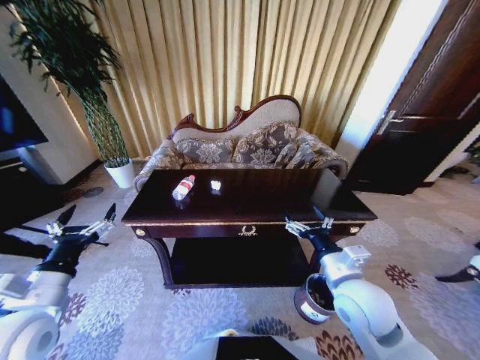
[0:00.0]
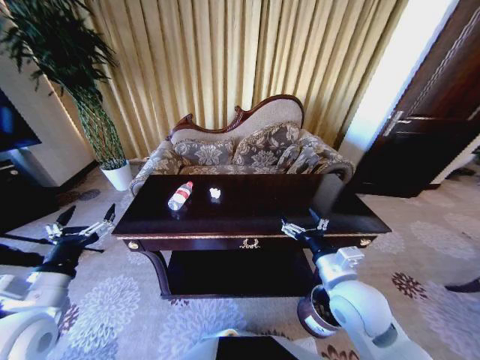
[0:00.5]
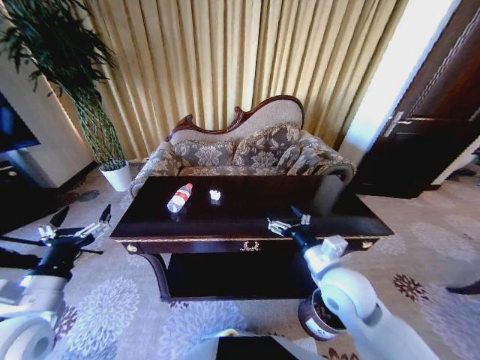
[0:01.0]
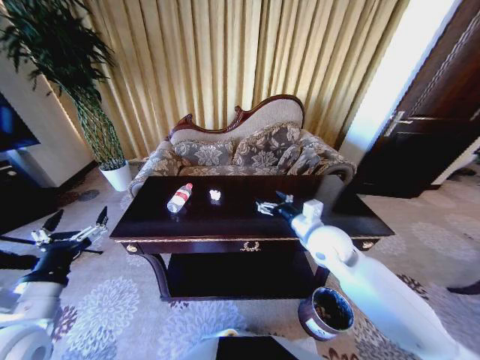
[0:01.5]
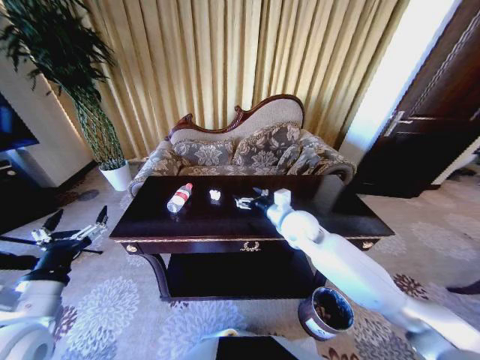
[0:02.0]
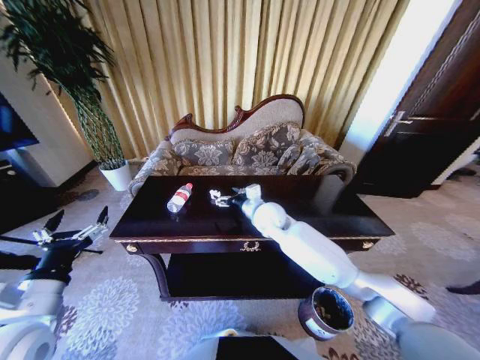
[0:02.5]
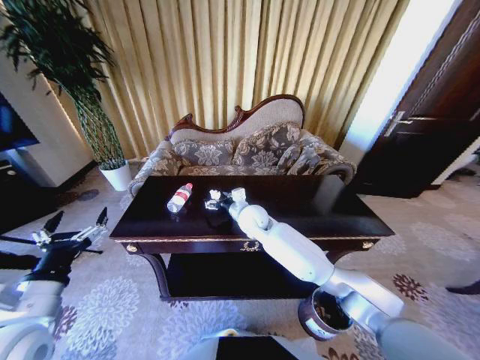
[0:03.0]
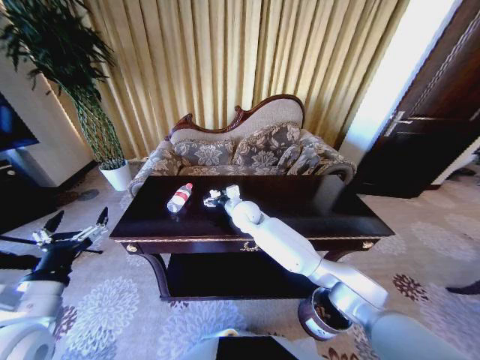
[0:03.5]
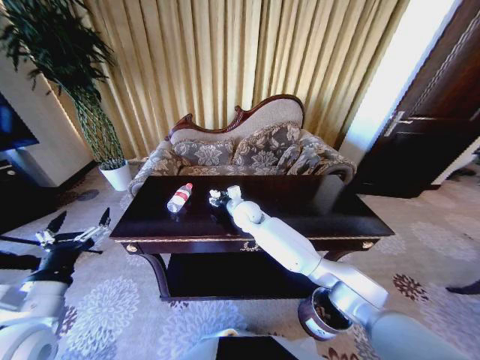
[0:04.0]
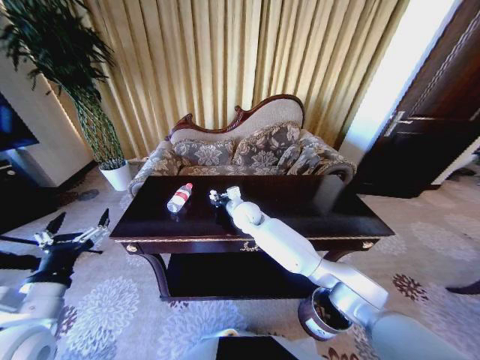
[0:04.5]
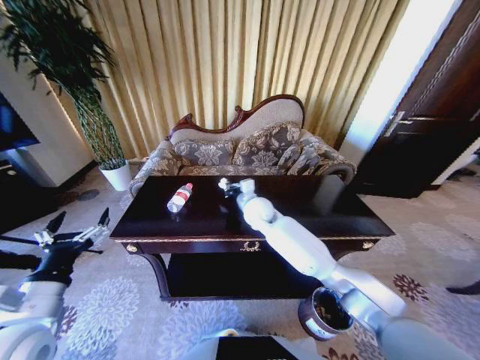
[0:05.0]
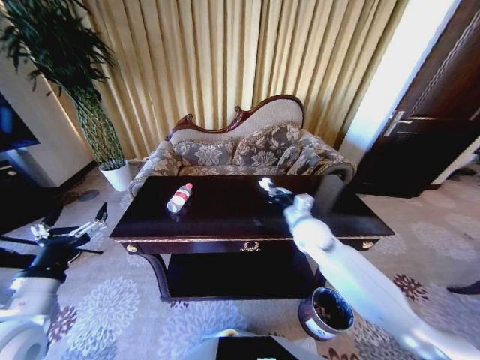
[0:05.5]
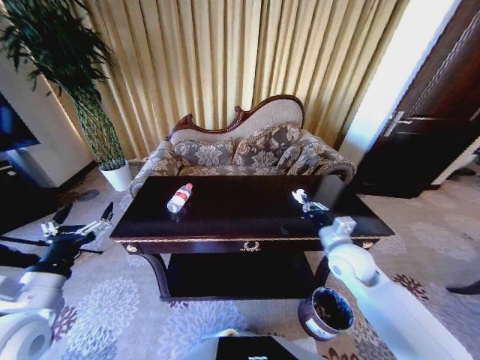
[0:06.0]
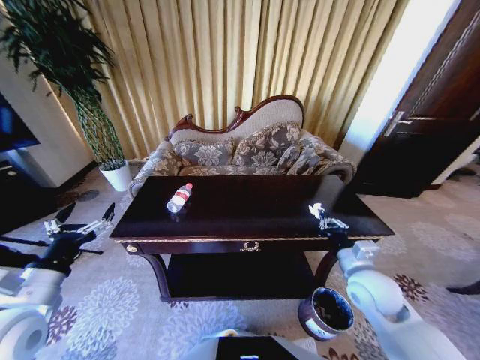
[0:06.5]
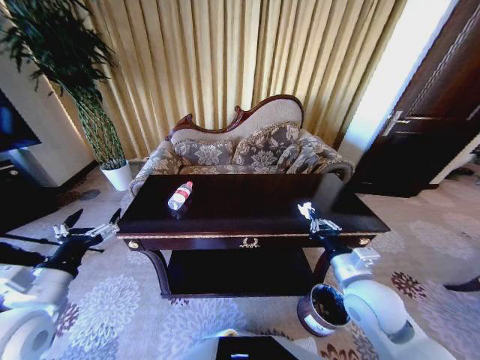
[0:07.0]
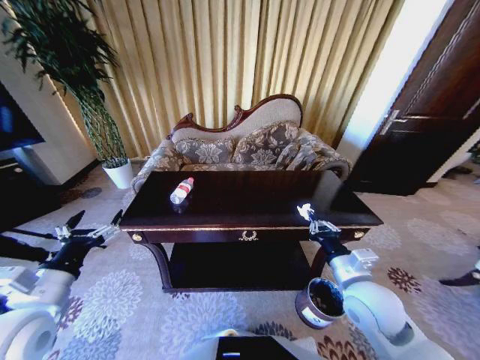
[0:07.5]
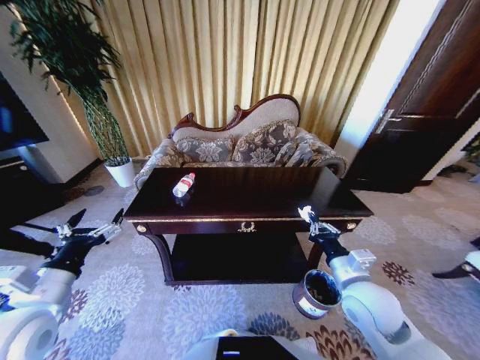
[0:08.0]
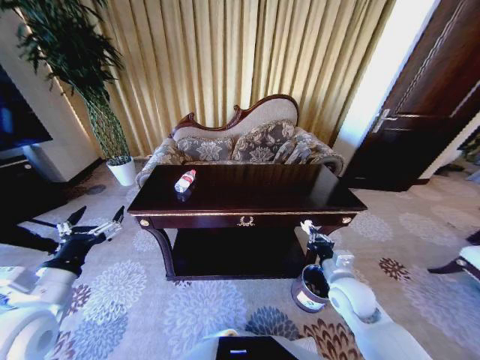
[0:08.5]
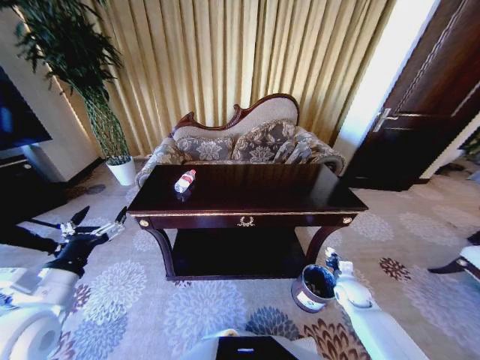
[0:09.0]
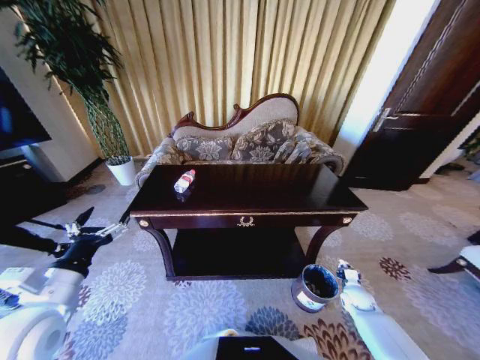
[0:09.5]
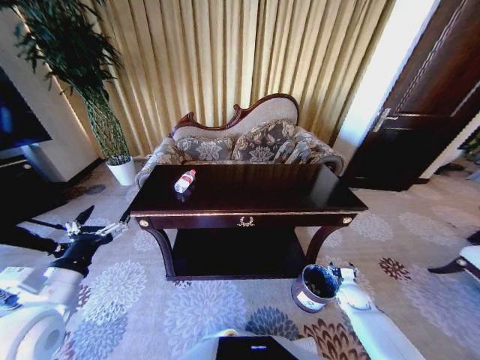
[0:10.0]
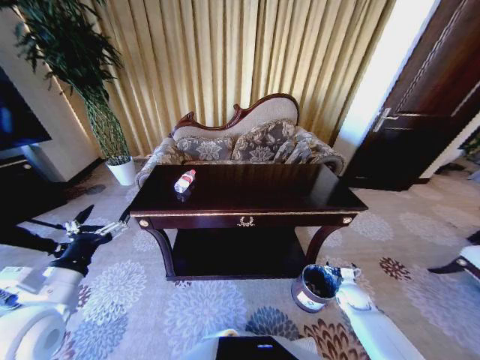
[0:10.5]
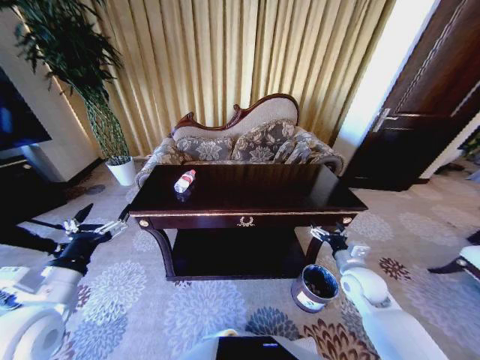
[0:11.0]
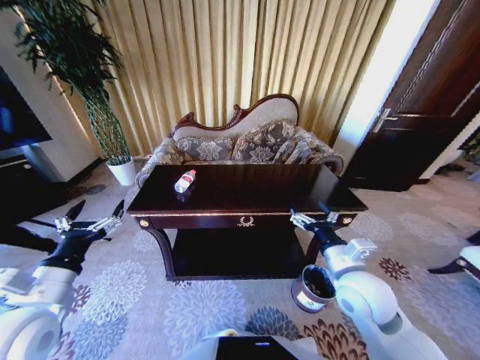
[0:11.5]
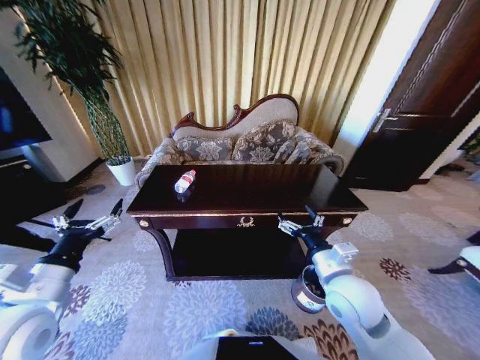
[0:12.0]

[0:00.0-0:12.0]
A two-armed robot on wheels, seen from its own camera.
Task of the whole recording: Move to the front of the table and place the trash on the table into the trash bin.
0:00.0 to 0:02.0: The right gripper moves forward, about 20 cm.
0:02.0 to 0:04.0: The right gripper shifts about 15 cm to the left, forward and downward.
0:04.0 to 0:06.0: The right gripper goes some 30 cm to the right and backward, and closes up.
0:06.0 to 0:08.0: The right gripper heads backward, covering roughly 10 cm.
0:08.0 to 0:10.0: The right gripper moves downward and to the right, about 30 cm, and opens up.
0:10.0 to 0:12.0: The right gripper is displaced upward and to the left by approximately 35 cm.

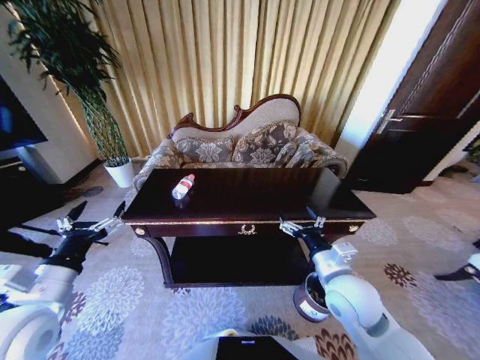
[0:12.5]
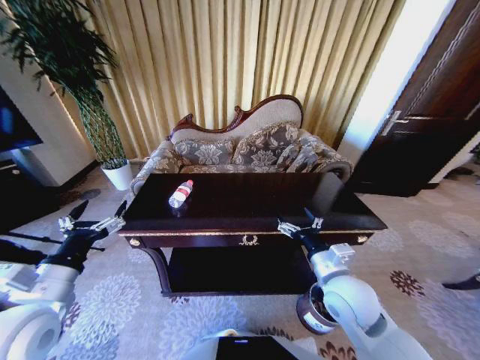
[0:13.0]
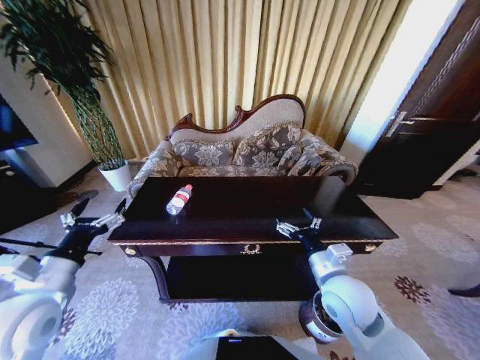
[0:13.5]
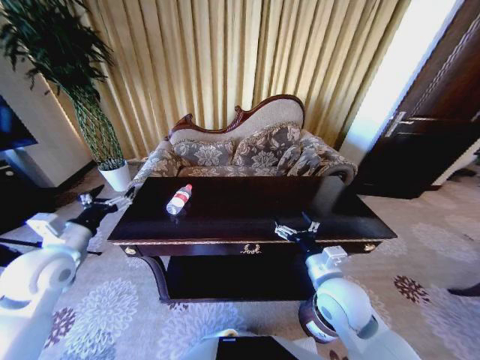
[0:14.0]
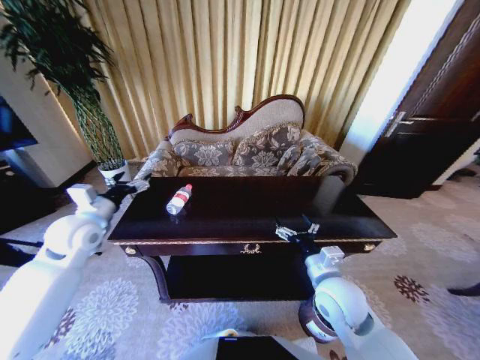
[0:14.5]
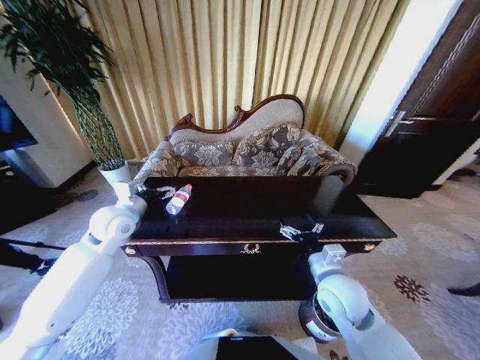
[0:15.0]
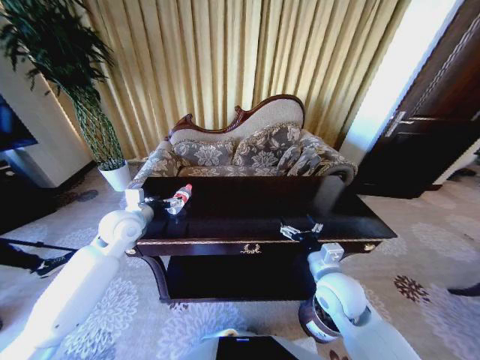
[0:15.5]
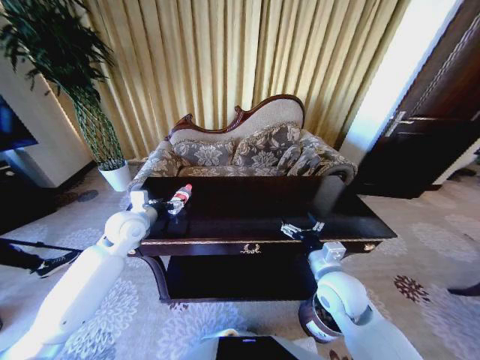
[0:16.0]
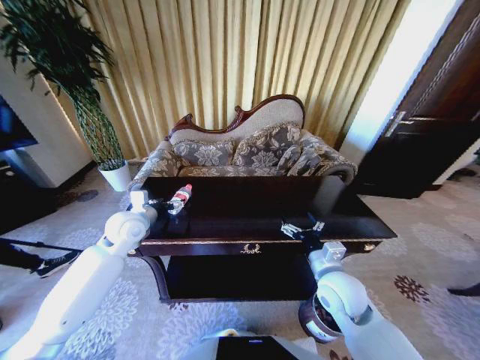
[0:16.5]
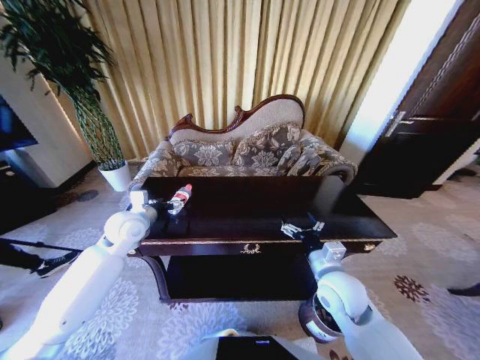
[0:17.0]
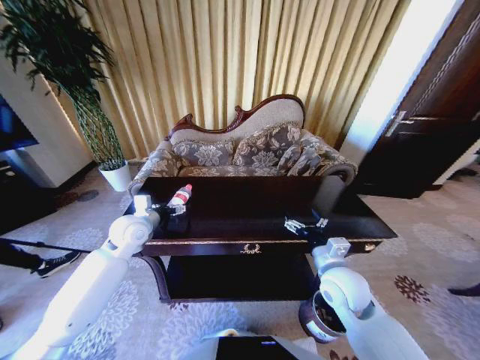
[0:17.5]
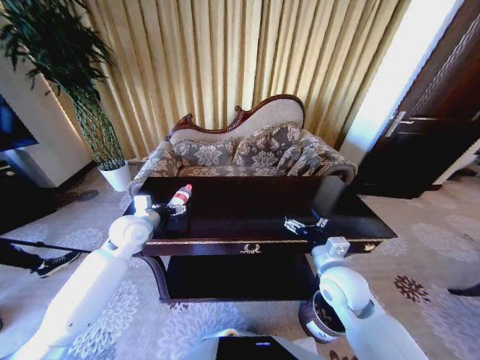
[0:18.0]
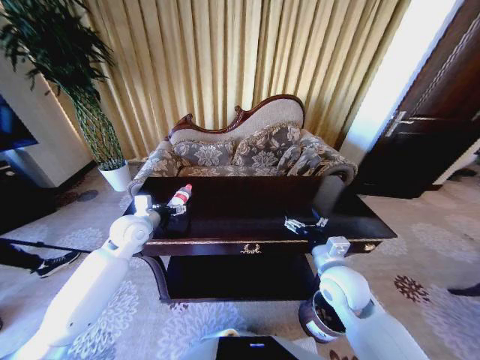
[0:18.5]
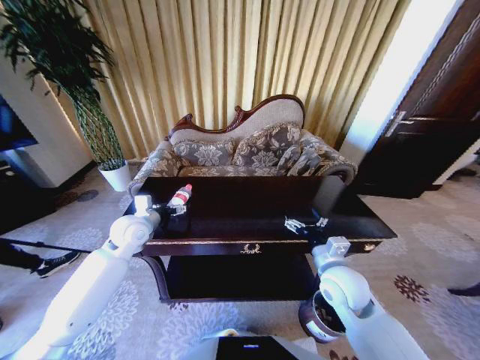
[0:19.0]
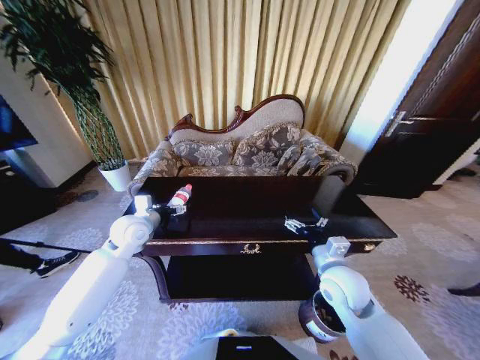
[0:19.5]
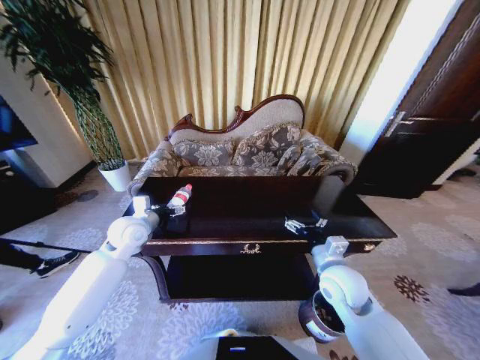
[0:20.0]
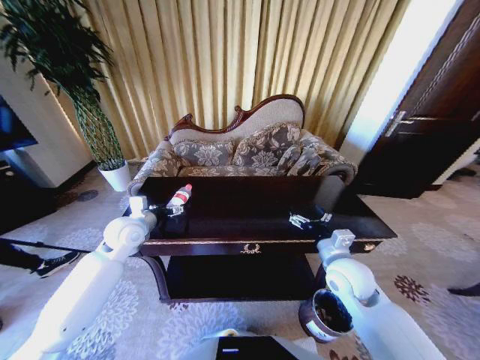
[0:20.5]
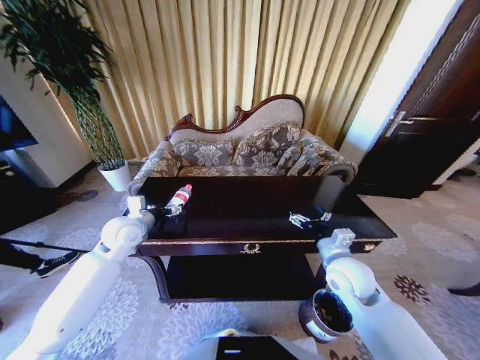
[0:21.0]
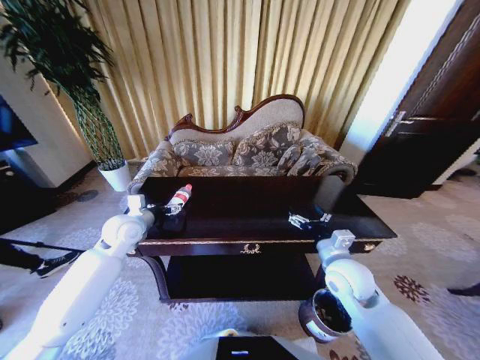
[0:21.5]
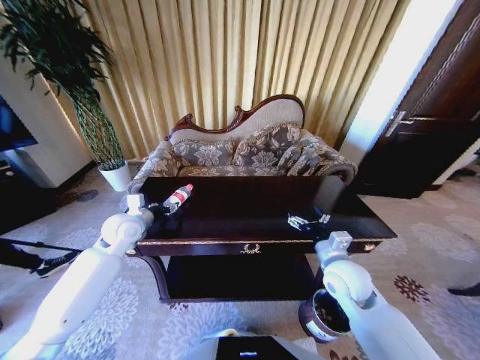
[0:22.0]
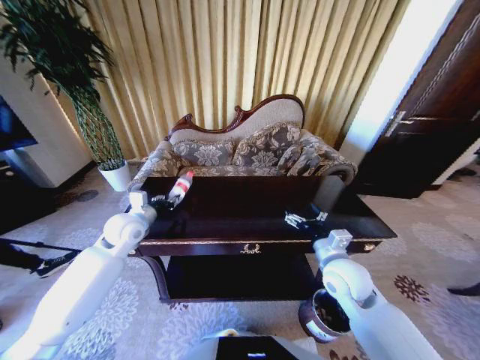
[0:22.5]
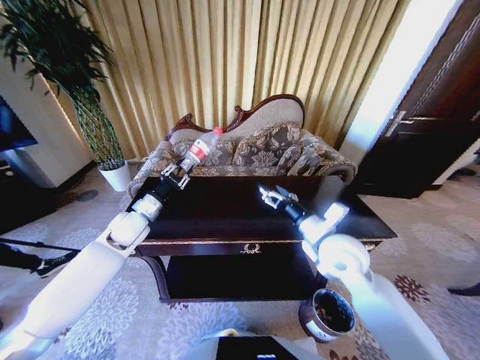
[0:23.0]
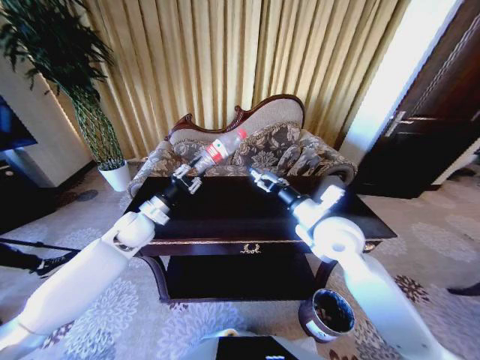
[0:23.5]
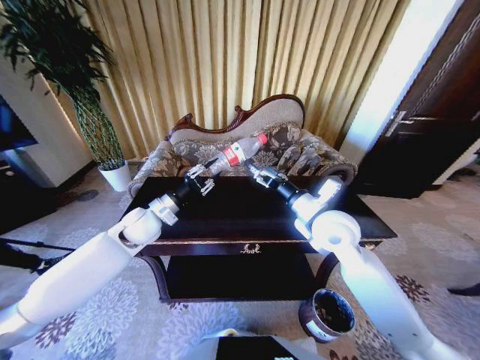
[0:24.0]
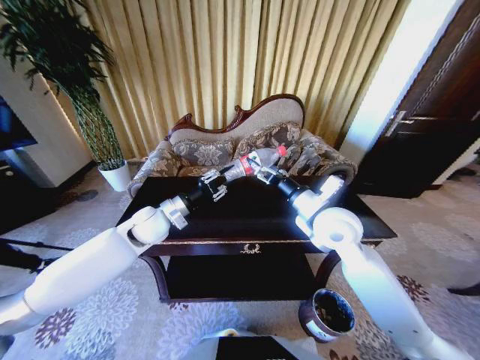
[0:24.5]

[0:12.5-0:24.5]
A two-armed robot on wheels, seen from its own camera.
Task of the whole recording: Move to the front of the table and place the trash on the table into the trash bin.
0:12.5 to 0:14.5: The left gripper goes approximately 20 cm forward.
0:14.5 to 0:16.5: The left gripper is displaced to the right by roughly 10 cm.
0:16.5 to 0:20.5: The grippers move only a little.
0:20.5 to 0:22.5: The left gripper closes up.
0:22.5 to 0:24.5: The left gripper goes some 10 cm to the right. Meanwhile the right gripper travels upward and forward by roughly 15 cm.

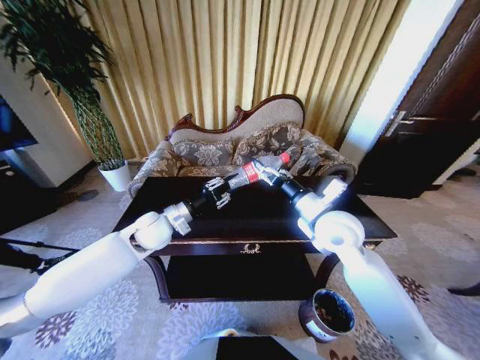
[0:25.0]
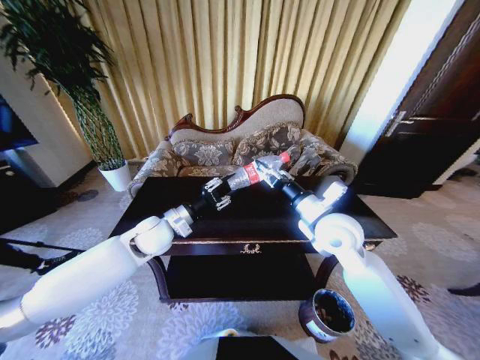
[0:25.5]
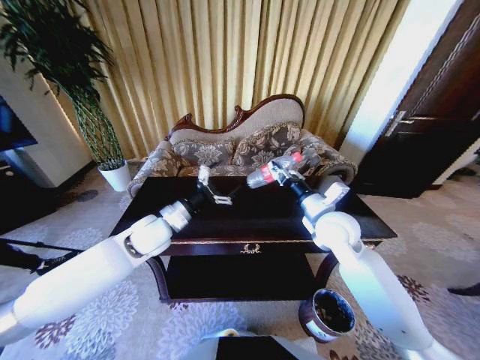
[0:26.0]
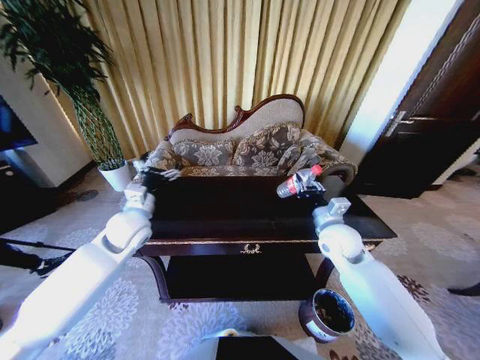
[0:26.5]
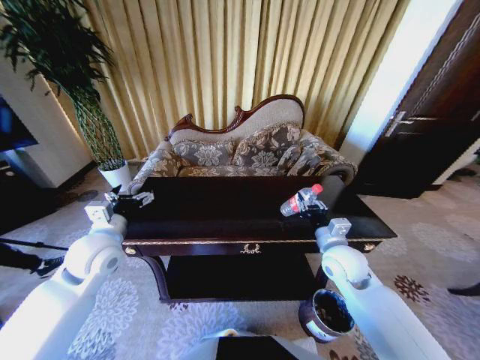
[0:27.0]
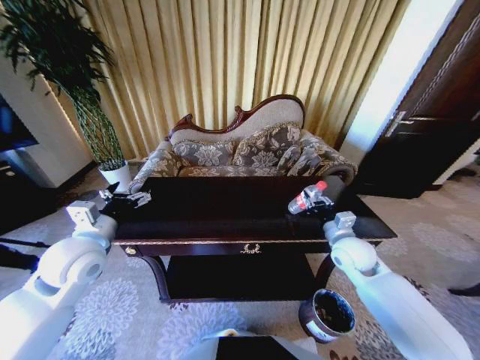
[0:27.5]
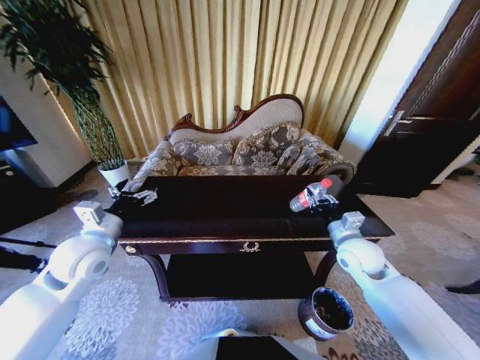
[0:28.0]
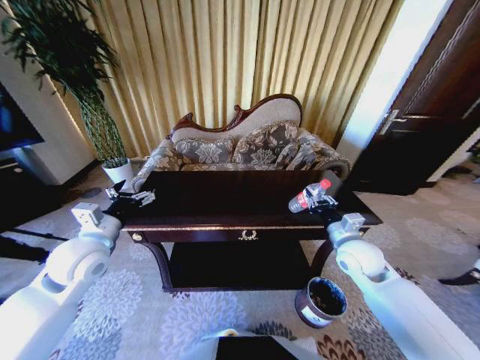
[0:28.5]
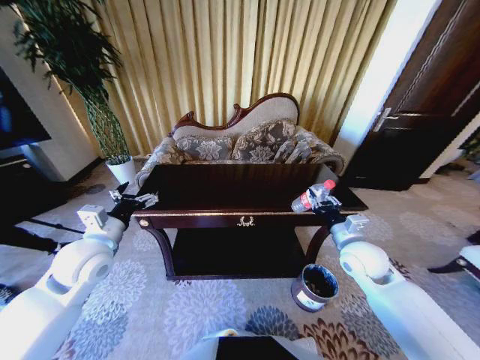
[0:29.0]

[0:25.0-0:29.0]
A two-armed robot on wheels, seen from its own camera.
Task of the whole recording: Move to the front of the table and place the trash on the table into the trash bin.
0:25.0 to 0:27.0: The right gripper shifts approximately 10 cm downward and to the right, and closes; the left gripper shifts some 15 cm to the left and backward, and opens up.
0:27.0 to 0:29.0: The right gripper changes place by approximately 5 cm.
